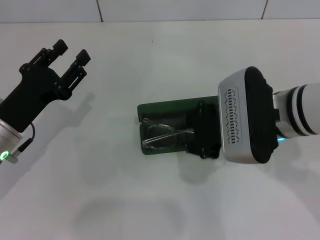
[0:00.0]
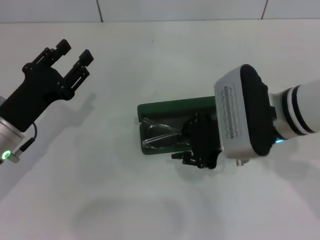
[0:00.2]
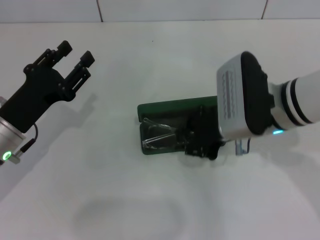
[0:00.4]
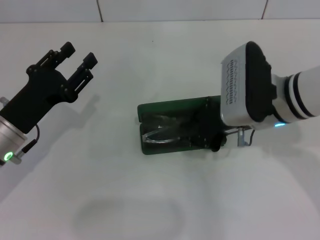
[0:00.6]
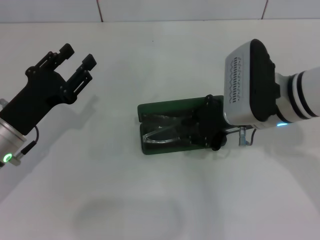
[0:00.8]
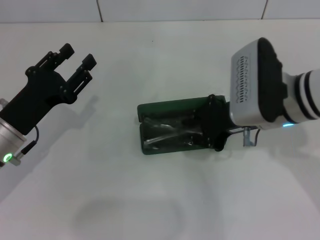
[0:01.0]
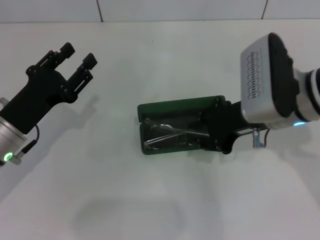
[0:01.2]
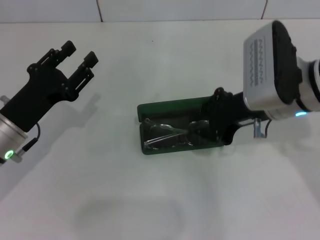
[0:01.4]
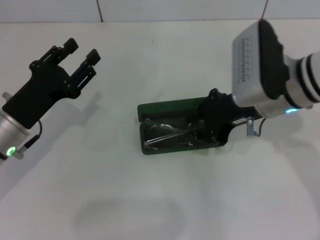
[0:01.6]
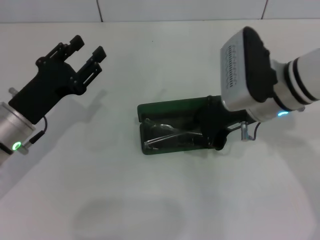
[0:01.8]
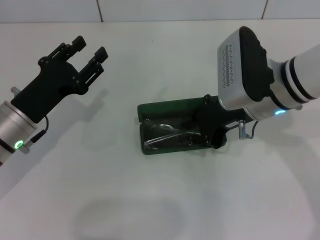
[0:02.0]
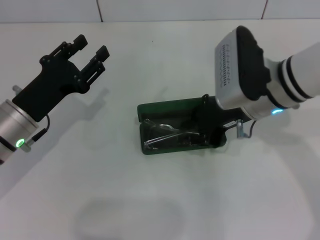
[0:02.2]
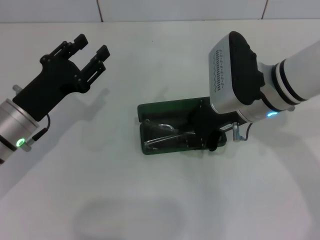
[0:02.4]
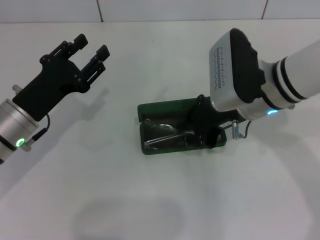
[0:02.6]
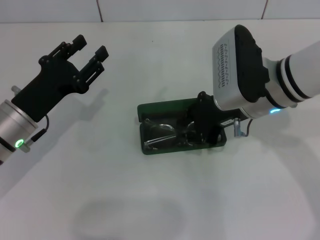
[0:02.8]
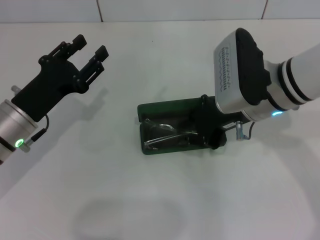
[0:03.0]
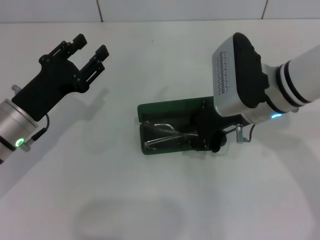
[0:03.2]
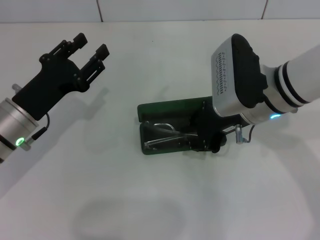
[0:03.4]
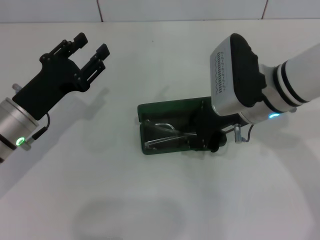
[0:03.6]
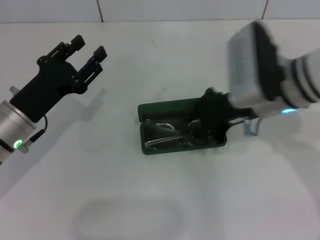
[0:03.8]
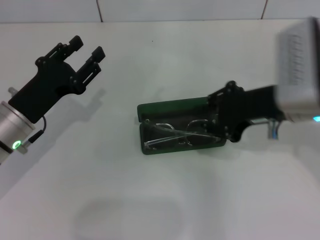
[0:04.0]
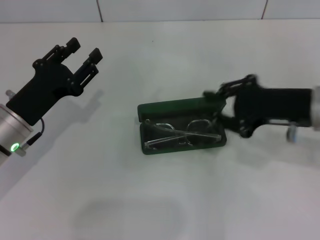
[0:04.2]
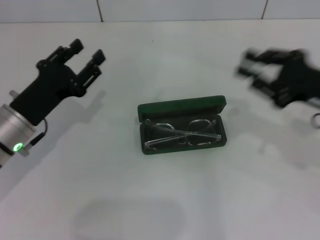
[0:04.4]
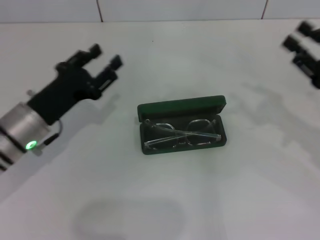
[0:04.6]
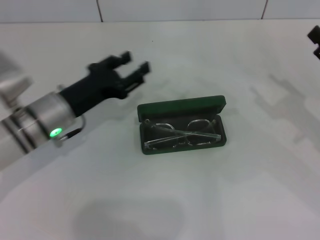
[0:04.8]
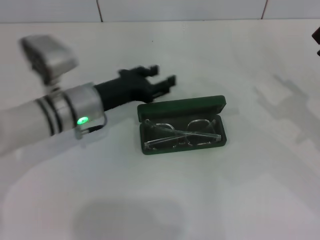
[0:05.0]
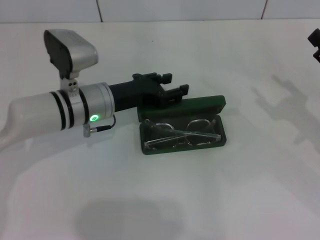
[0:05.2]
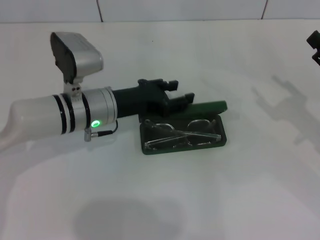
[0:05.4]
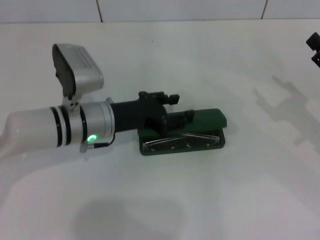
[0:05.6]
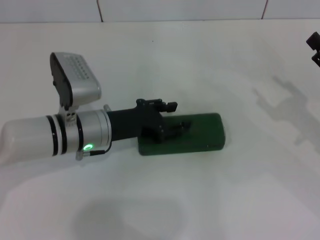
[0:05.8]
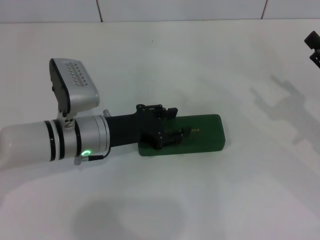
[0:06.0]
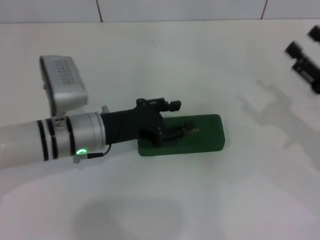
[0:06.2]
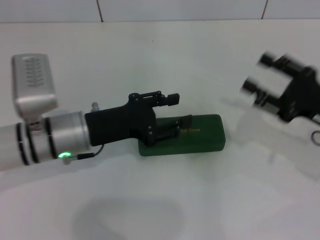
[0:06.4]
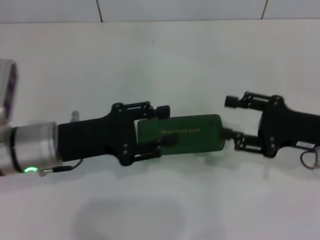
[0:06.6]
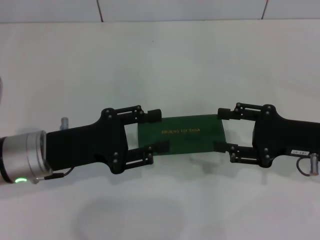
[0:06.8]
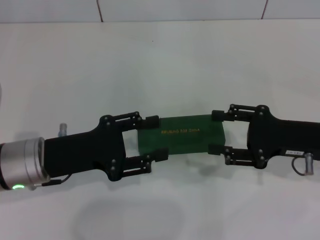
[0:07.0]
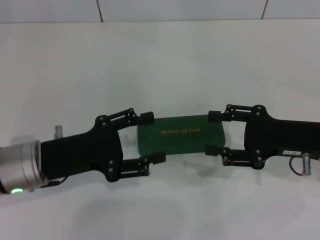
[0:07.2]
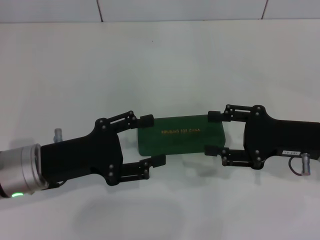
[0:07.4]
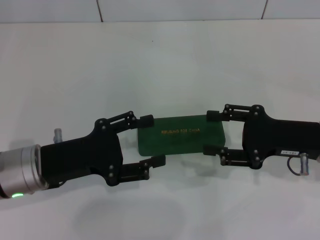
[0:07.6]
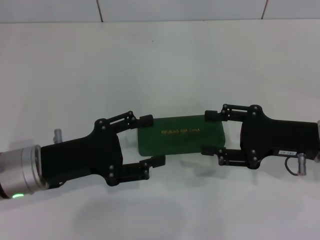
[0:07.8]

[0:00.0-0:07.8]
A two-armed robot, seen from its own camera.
Step, 0:00.0 to 0:03.8: Put the glasses into the case with your right hand.
Step, 0:04.0 to 0:06.0: Close the glasses case with your left hand.
0:00.0 to 0:03.2: There are only small adjustments of the grippers.
0:03.2 to 0:04.6: The right gripper is displaced to the right by approximately 20 cm.
0:04.6 to 0:06.2: The right gripper opens up; the left gripper goes some 5 cm to the right.
0:06.2 to 0:07.8: The right gripper is displaced to the left by some 5 cm; the left gripper travels backward and to the left by about 10 cm.

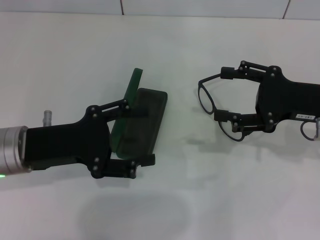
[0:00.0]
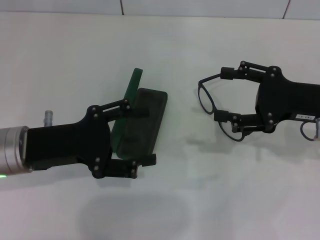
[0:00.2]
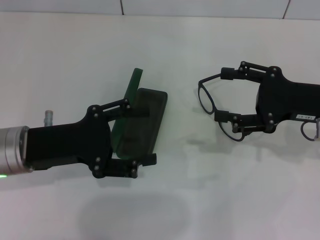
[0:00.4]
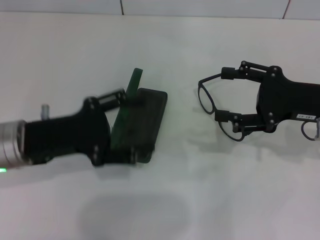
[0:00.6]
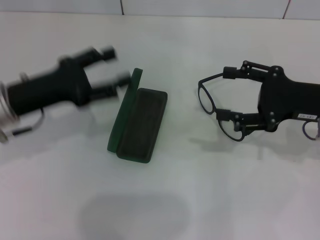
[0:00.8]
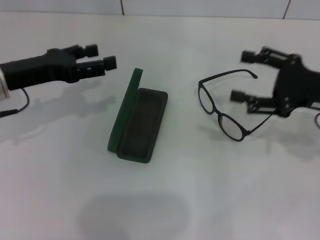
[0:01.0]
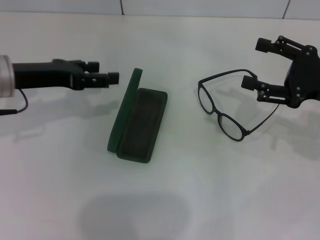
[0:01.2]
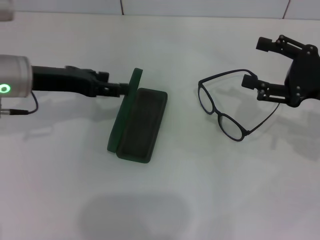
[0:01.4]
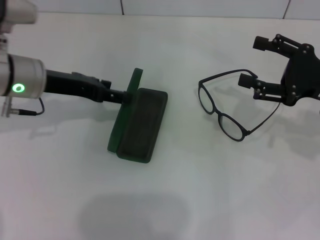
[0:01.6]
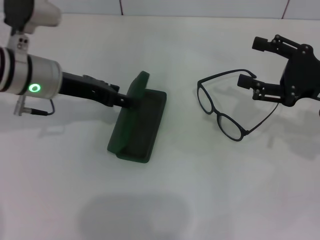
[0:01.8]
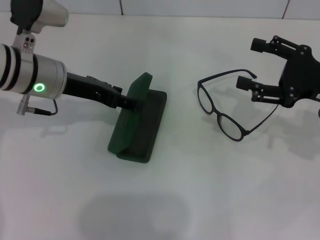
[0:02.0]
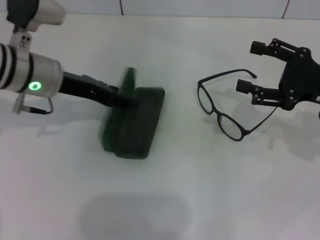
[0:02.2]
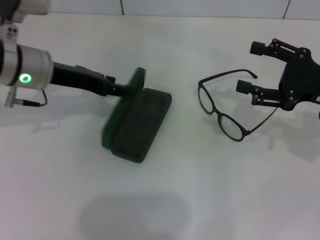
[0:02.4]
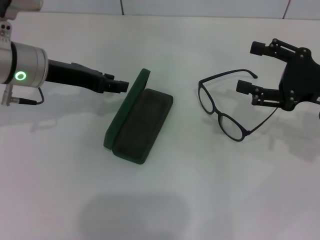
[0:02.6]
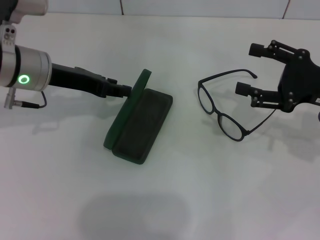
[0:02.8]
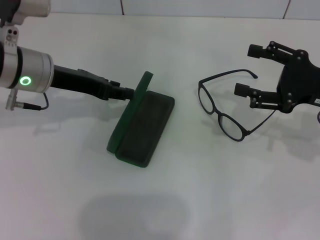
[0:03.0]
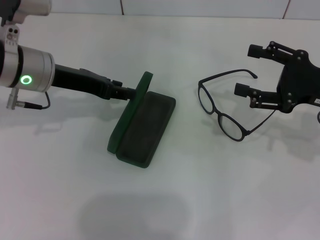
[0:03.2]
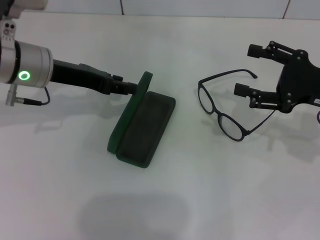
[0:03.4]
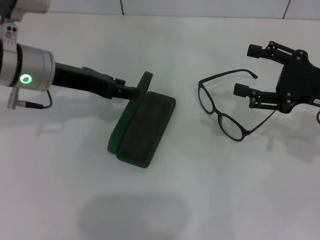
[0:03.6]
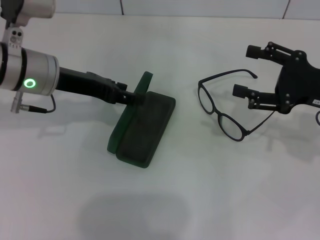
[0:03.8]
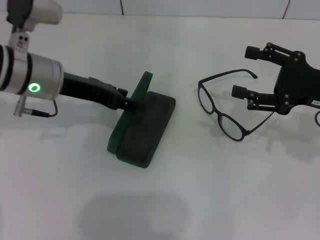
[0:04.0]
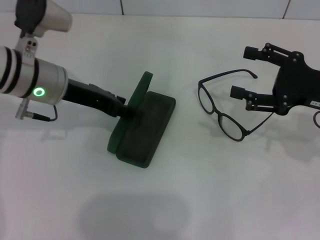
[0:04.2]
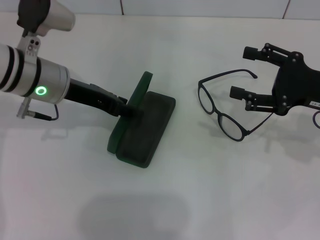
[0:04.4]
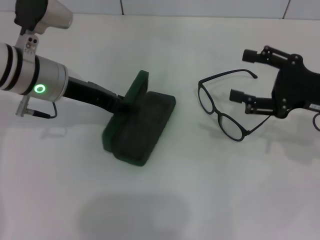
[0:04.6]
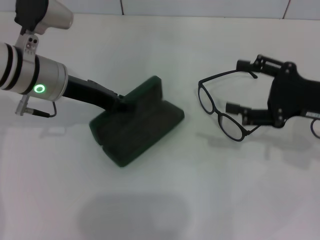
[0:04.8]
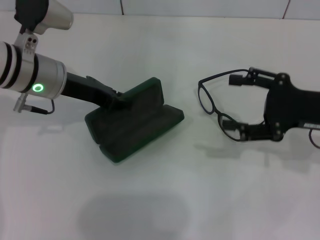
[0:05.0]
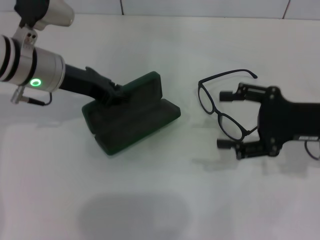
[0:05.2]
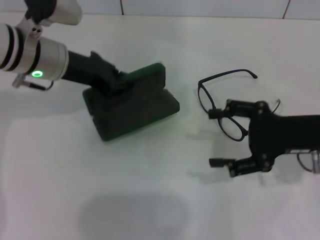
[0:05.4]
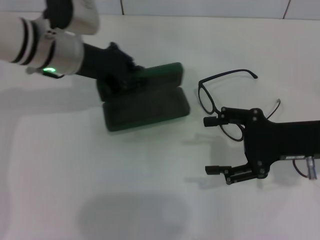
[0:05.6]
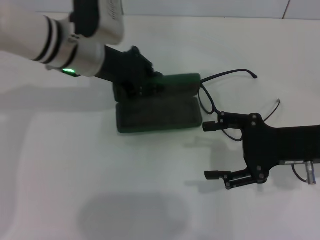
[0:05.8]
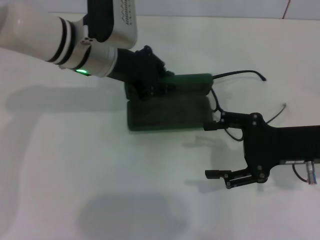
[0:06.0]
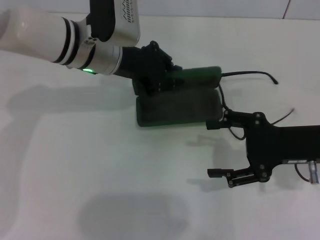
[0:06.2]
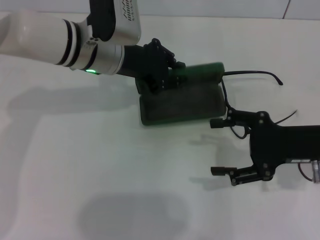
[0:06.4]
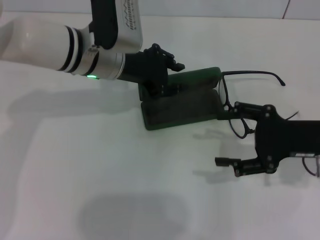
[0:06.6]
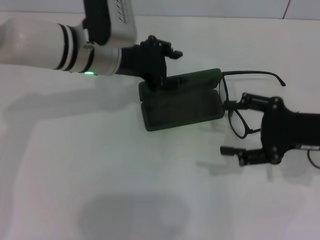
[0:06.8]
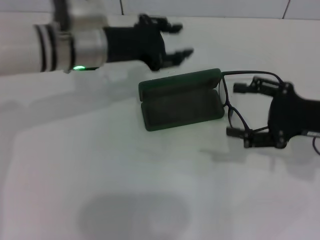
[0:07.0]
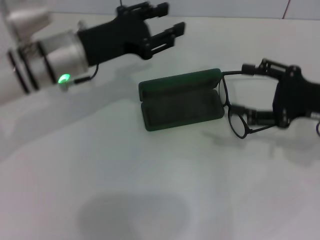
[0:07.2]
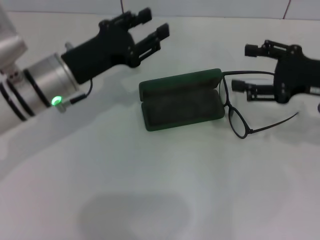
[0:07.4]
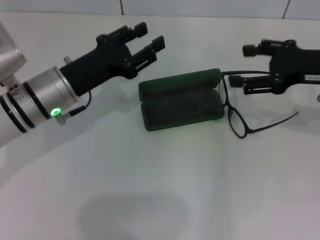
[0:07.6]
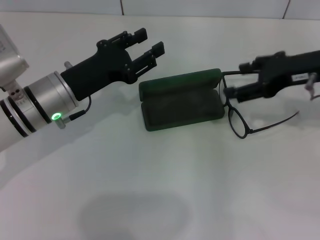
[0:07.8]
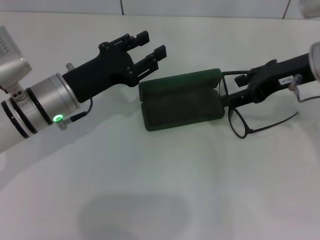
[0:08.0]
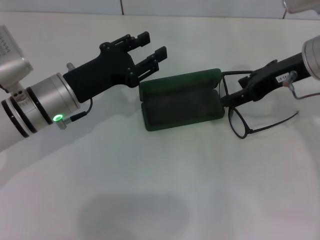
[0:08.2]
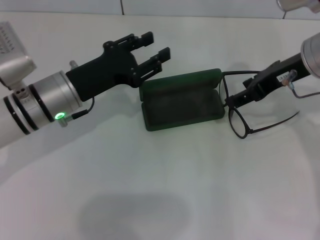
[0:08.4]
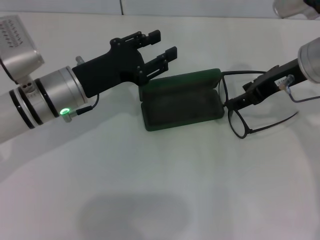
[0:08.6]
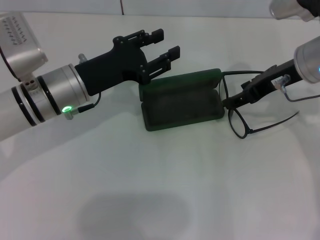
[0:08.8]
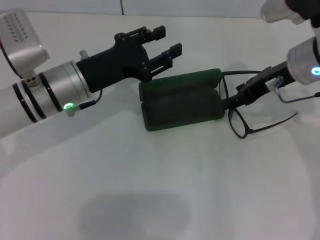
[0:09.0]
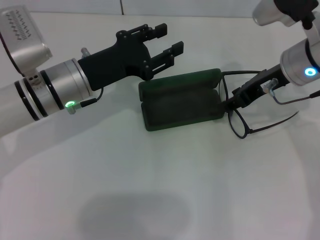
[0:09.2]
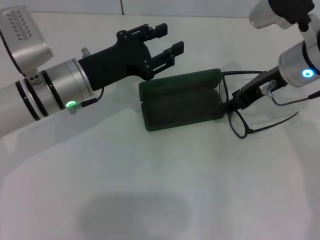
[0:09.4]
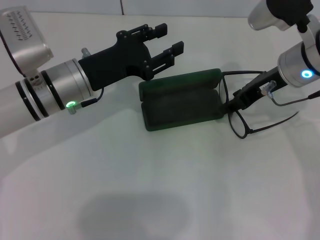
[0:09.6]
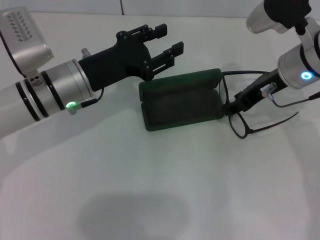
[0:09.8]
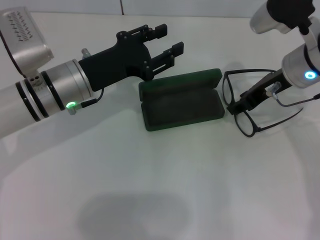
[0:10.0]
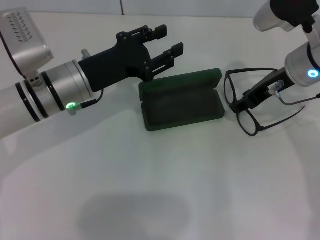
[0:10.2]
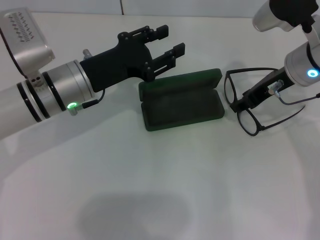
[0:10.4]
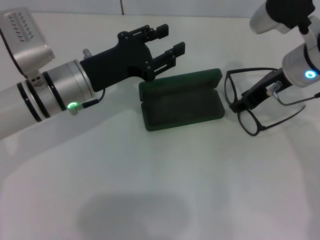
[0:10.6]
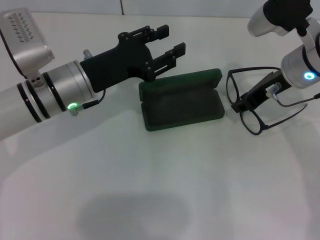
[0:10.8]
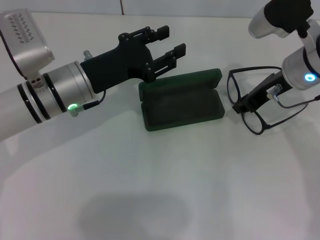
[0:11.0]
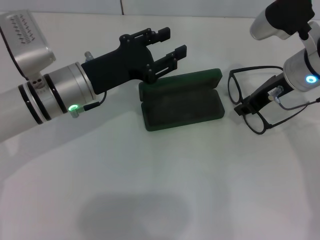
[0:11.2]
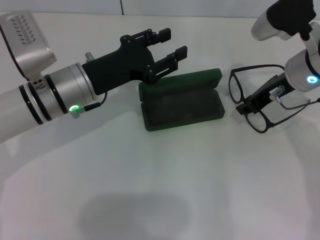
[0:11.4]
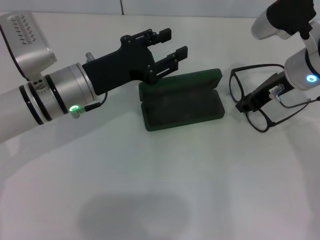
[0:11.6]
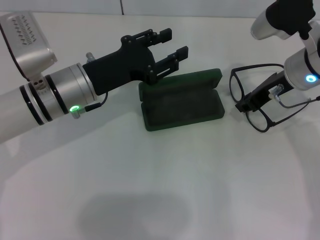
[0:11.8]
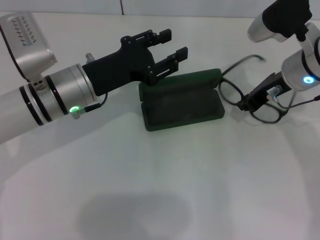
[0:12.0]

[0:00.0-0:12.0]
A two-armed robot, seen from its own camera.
Step, 0:00.0 to 0:04.6: Grab the glasses case with your left hand.
Step, 0:04.8 to 0:06.4: Place the glasses case in the center of the table with your left hand.
Step, 0:06.8 to 0:12.0: Grab the eyeglass frame with your right hand.
0:00.0 to 0:01.6: The left gripper travels forward by some 10 cm.
0:01.6 to 0:03.0: The left gripper closes.
0:03.0 to 0:04.4: The left gripper opens up.
0:04.4 to 0:06.0: The left gripper goes about 5 cm to the right, and closes.
0:06.0 to 0:07.6: The left gripper shifts about 10 cm backward, downward and to the left, and opens. Meanwhile the right gripper moves upward and forward, about 10 cm.
0:07.6 to 0:09.0: The right gripper heads to the left, covering some 10 cm.
0:09.0 to 0:10.4: The grippers make only small movements.
0:10.4 to 0:12.0: The right gripper closes up.

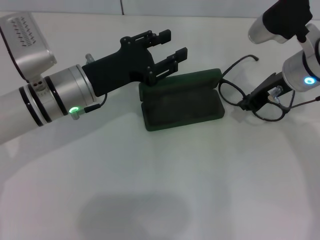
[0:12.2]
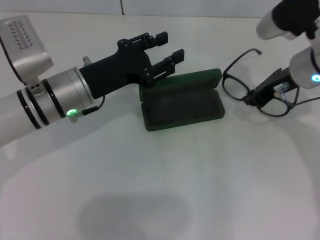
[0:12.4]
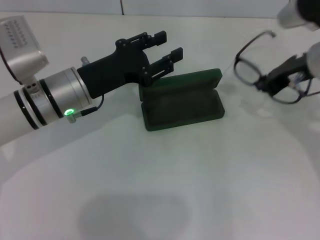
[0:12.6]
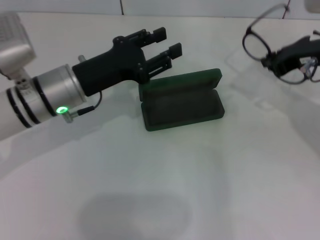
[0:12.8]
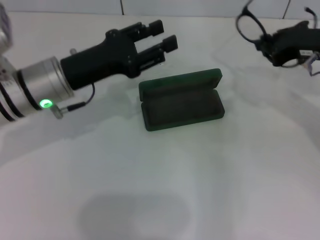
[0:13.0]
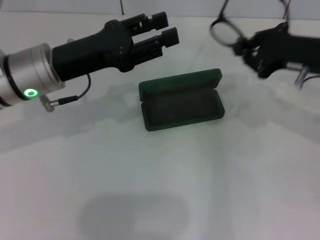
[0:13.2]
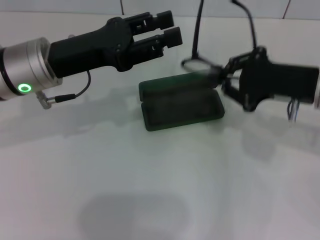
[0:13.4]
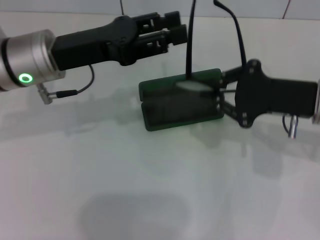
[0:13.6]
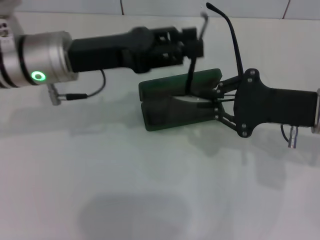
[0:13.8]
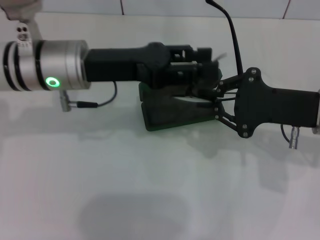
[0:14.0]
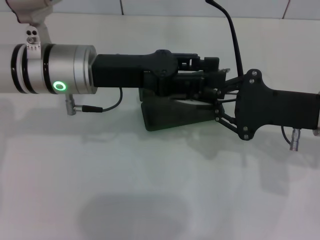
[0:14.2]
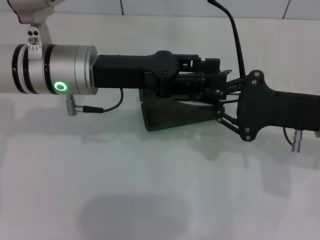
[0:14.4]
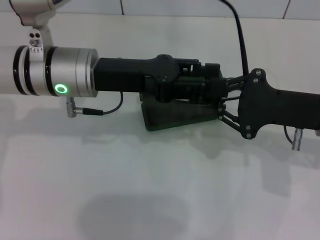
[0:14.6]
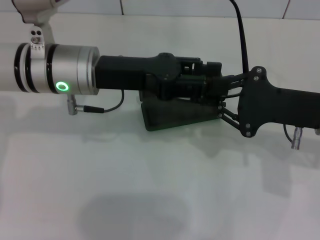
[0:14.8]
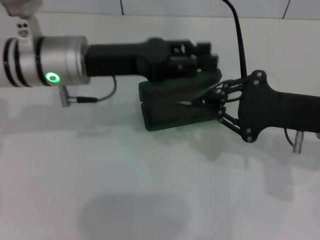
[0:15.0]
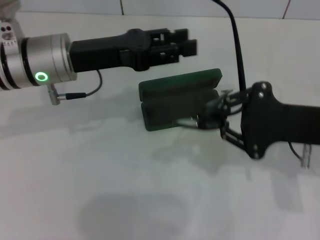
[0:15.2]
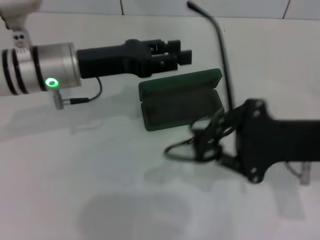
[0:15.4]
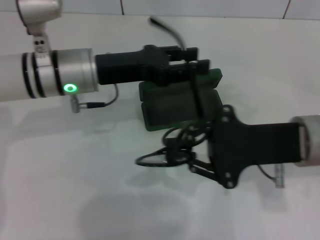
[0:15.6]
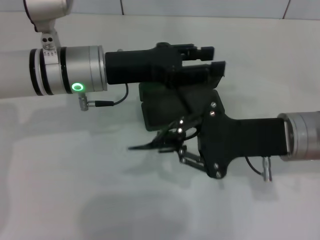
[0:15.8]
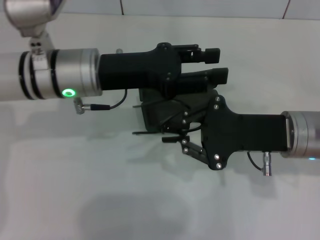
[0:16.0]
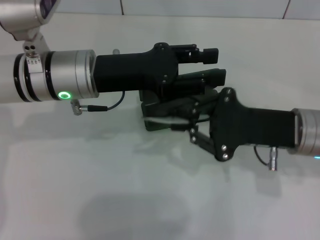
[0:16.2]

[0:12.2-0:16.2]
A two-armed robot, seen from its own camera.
0:12.2 to 0:13.6: The left gripper is displaced upward by roughly 5 cm, while the right gripper is displaced backward by roughly 10 cm.
